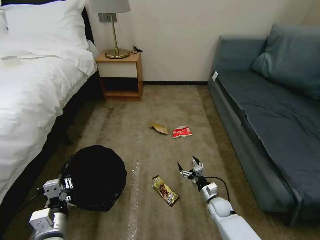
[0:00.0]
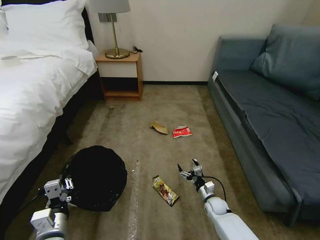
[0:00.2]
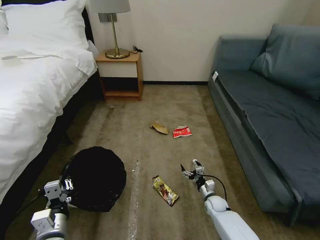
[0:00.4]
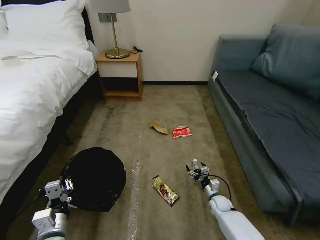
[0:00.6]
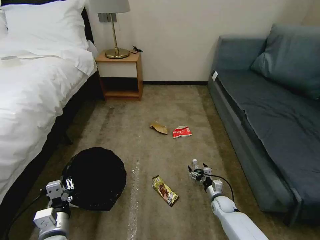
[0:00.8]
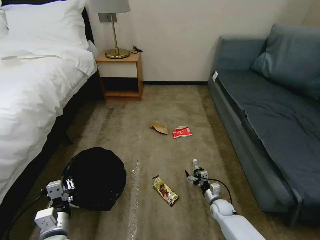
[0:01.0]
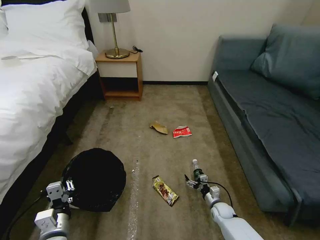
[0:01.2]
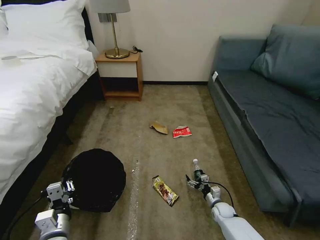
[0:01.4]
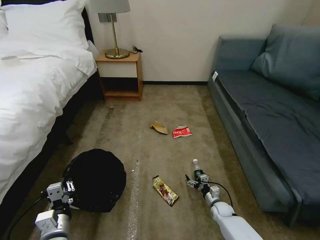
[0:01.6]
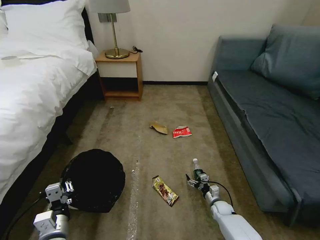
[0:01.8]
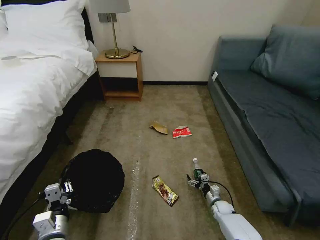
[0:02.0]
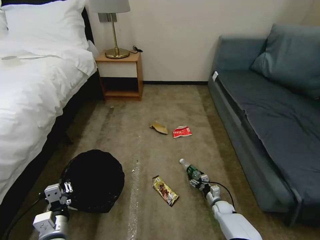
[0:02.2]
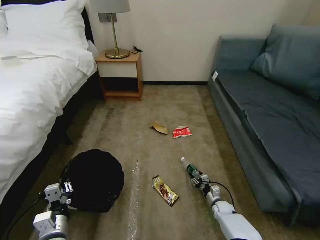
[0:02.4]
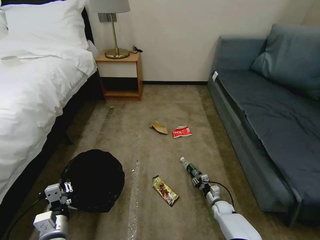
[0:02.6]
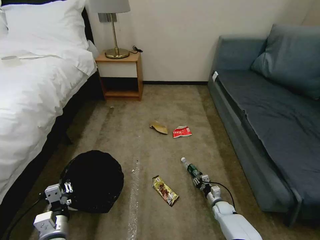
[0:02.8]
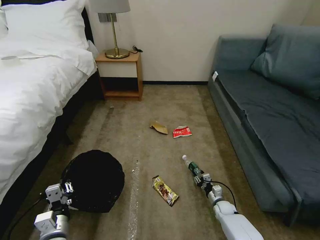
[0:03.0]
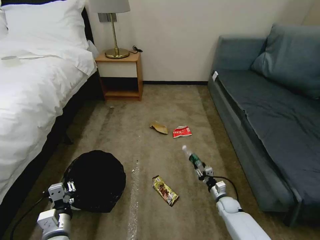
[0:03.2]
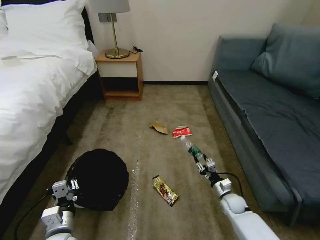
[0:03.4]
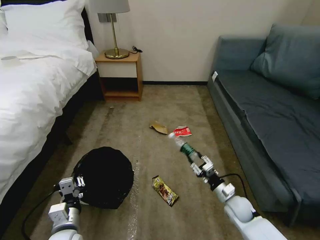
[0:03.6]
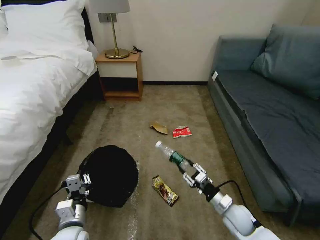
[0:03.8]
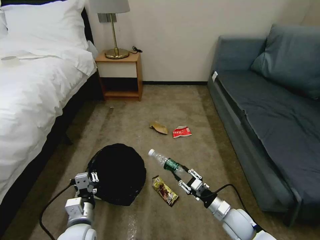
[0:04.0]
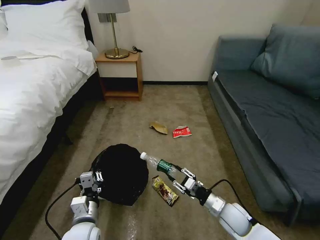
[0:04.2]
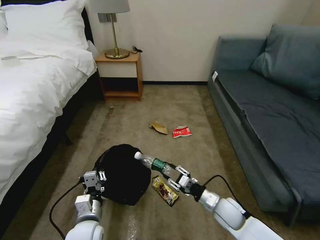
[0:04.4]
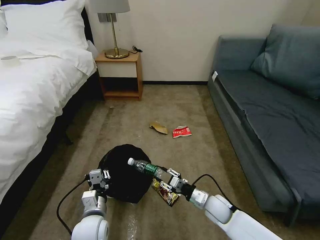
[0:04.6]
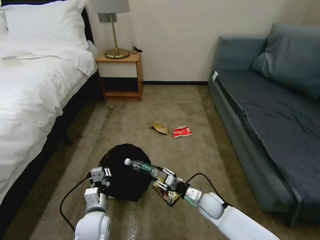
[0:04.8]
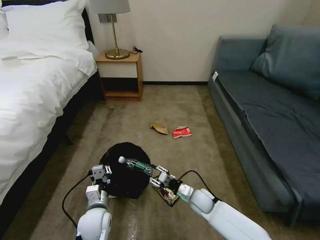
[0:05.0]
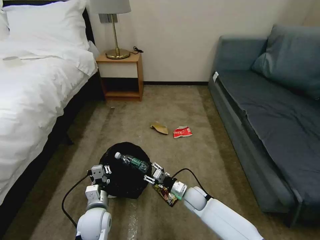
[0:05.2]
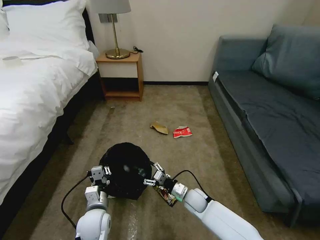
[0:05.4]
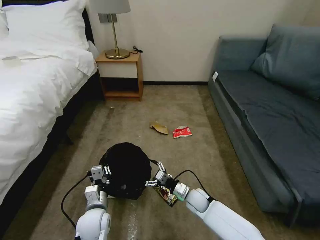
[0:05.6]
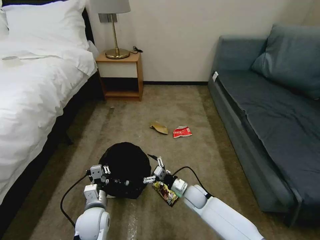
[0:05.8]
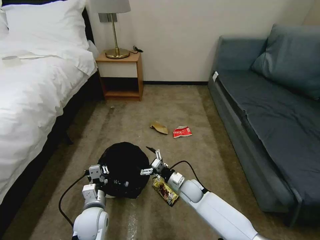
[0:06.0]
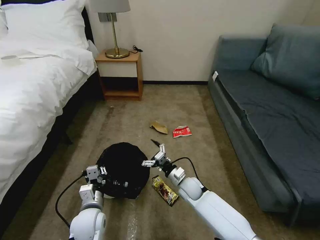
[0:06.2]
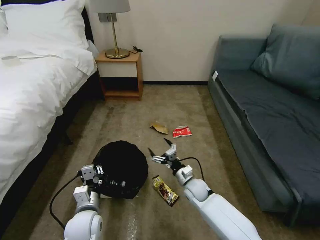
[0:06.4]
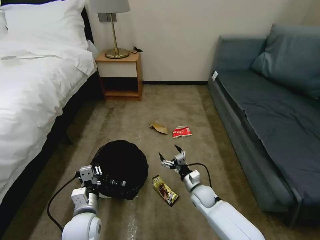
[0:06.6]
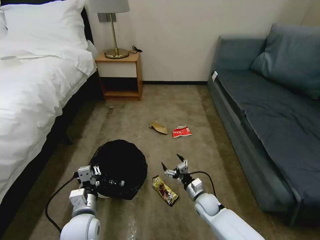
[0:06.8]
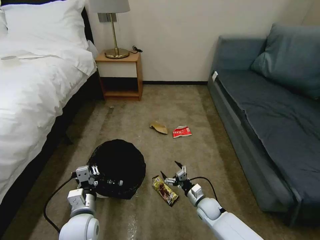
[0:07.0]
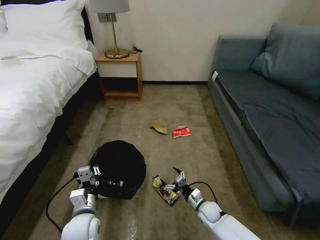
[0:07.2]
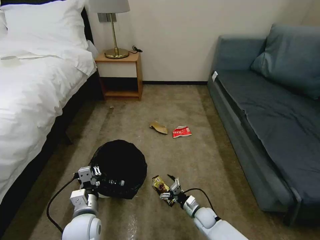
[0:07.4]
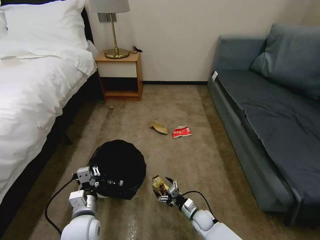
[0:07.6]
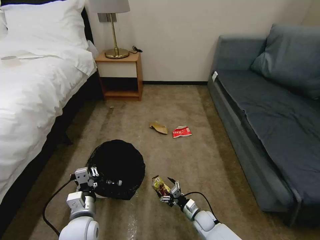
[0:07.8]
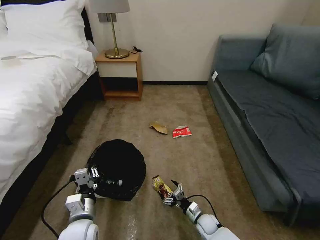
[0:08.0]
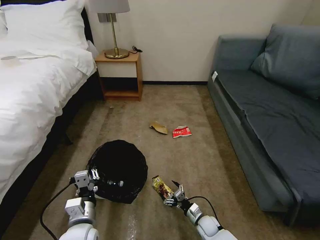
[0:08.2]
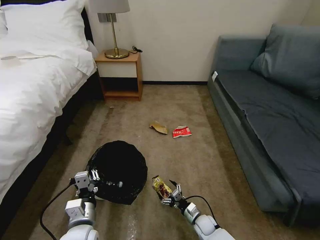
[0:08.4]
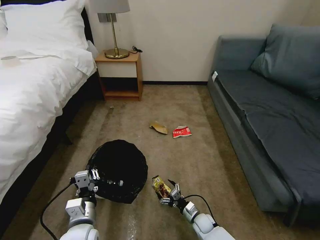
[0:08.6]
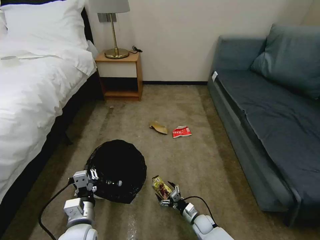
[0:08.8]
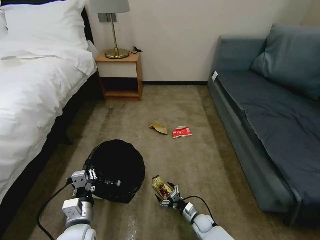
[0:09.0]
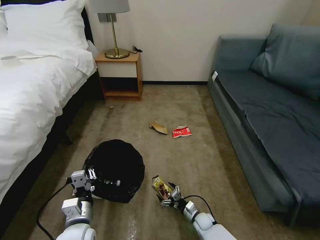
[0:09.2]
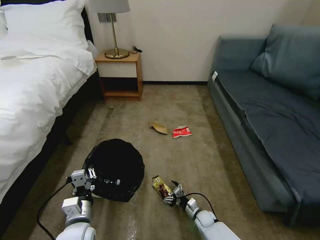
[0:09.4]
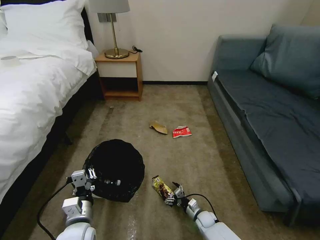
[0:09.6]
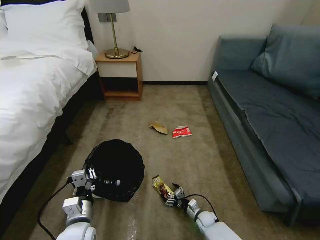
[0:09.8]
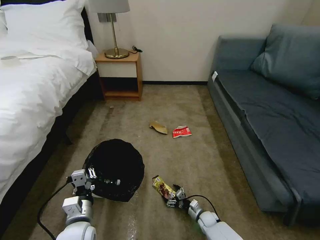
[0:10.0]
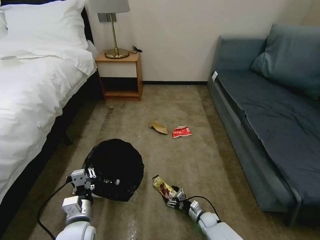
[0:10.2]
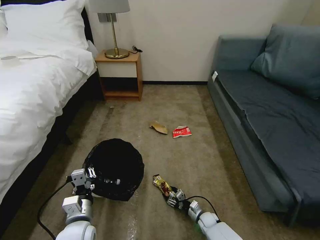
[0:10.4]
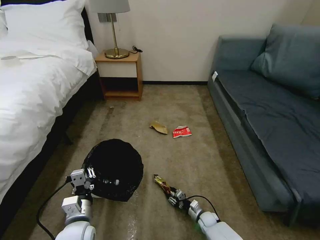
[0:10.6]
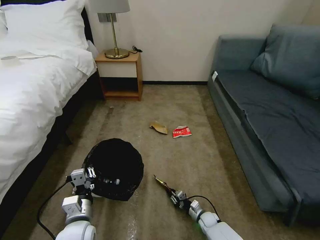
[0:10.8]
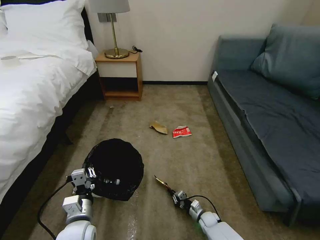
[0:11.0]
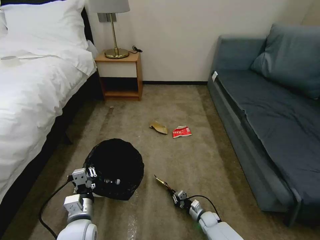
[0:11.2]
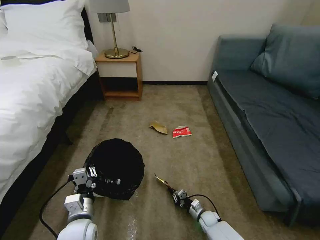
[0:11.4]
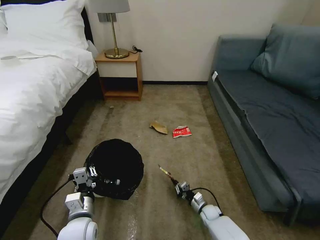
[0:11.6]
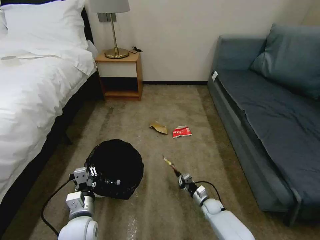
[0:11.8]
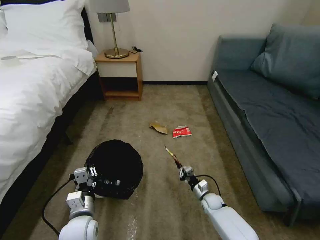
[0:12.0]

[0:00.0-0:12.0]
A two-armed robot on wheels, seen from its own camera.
Task of the whole recording: Pick up the trash bin, then pick up the garbage on the floor and place it into the trash bin.
0:00.0 to 0:01.6: The right gripper is displaced downward by roughly 5 cm.
0:01.6 to 0:03.0: The right gripper closes its fingers.
0:03.0 to 0:04.4: The right gripper heads upward, covering roughly 20 cm. The left gripper travels to the right by some 10 cm.
0:04.4 to 0:06.0: The right gripper heads to the left and forward, covering about 15 cm, and opens. Meanwhile the left gripper shifts by approximately 5 cm.
0:06.0 to 0:07.6: The right gripper shifts roughly 15 cm downward, backward and to the right.
0:07.6 to 0:09.0: The grippers stay close to where they were, moving slightly.
0:09.0 to 0:10.4: The right gripper closes.
0:10.4 to 0:12.0: The right gripper is displaced upward and forward by some 10 cm, and closes its fingers.

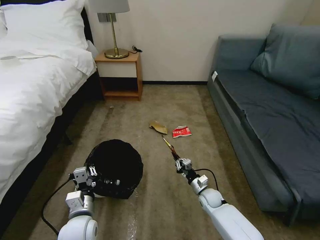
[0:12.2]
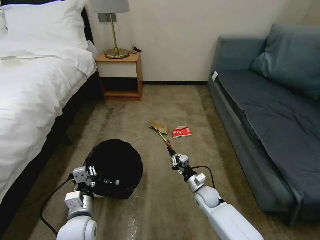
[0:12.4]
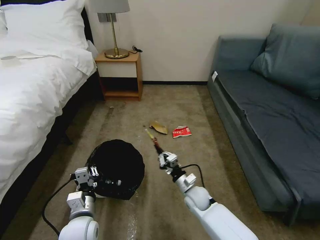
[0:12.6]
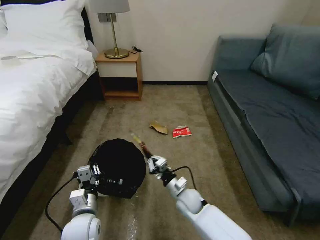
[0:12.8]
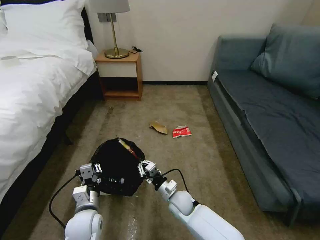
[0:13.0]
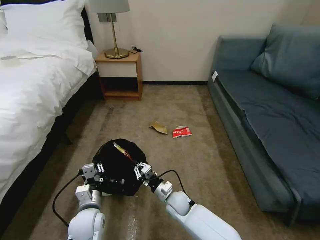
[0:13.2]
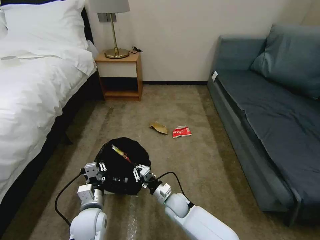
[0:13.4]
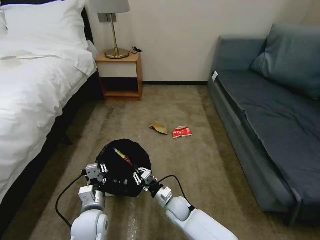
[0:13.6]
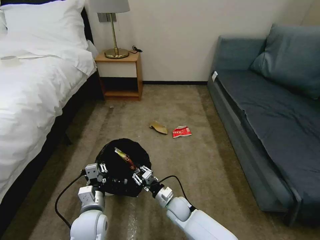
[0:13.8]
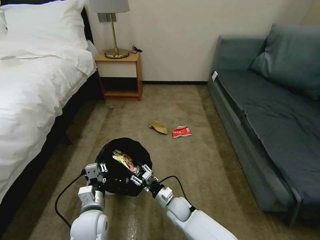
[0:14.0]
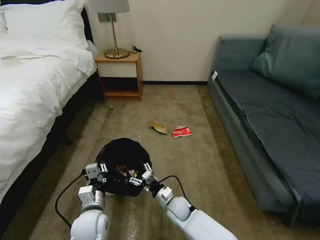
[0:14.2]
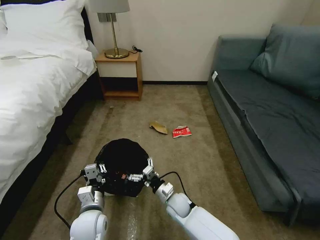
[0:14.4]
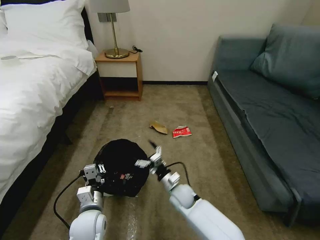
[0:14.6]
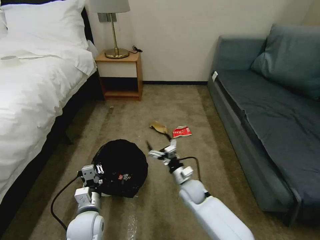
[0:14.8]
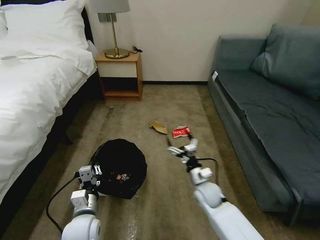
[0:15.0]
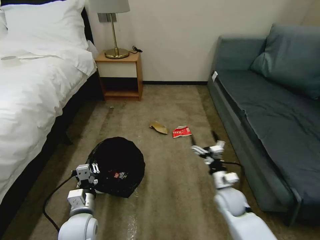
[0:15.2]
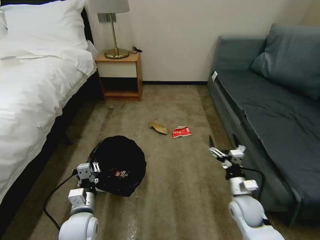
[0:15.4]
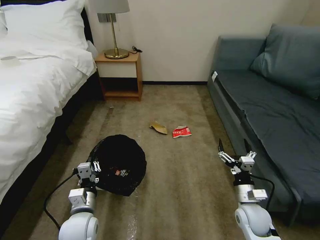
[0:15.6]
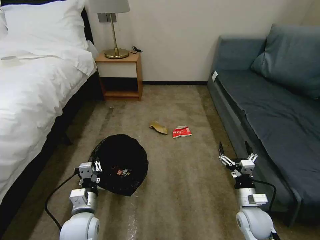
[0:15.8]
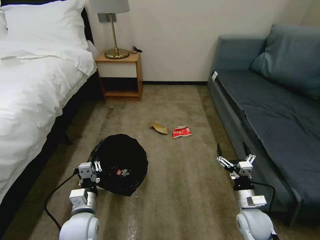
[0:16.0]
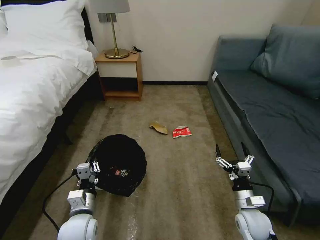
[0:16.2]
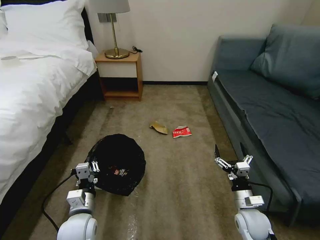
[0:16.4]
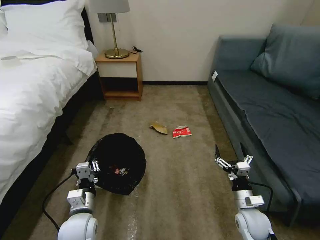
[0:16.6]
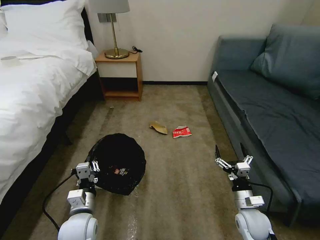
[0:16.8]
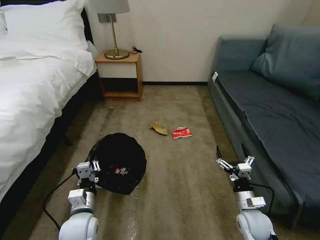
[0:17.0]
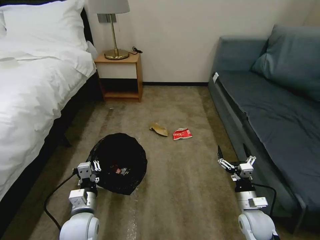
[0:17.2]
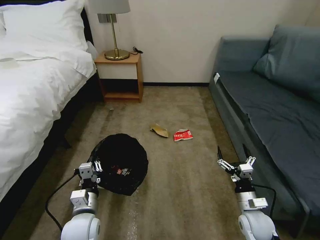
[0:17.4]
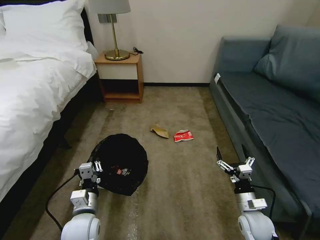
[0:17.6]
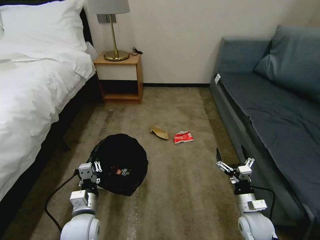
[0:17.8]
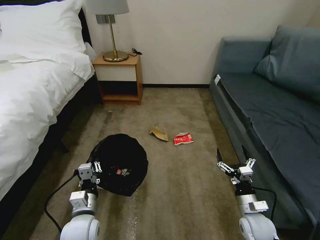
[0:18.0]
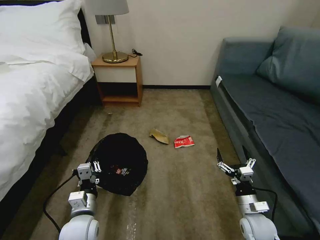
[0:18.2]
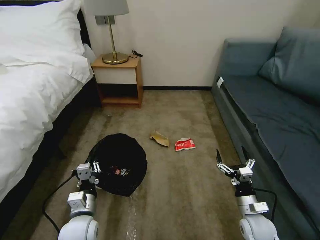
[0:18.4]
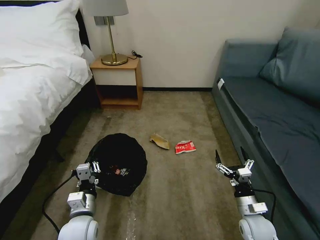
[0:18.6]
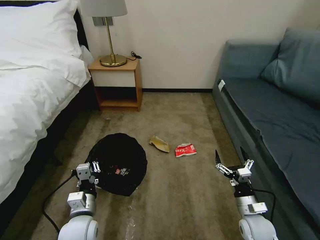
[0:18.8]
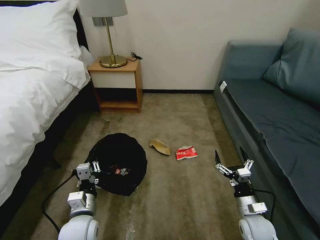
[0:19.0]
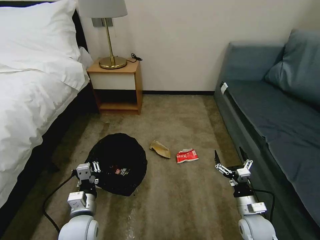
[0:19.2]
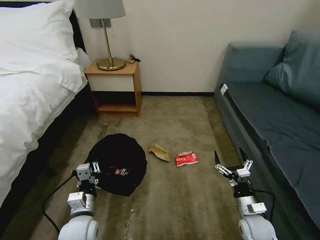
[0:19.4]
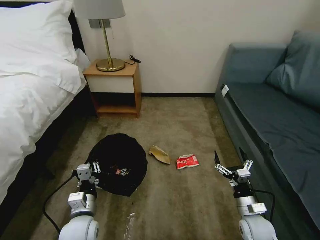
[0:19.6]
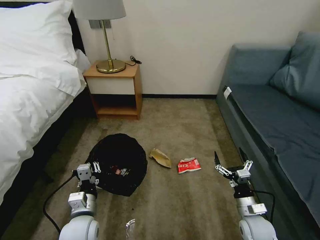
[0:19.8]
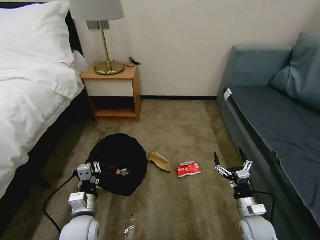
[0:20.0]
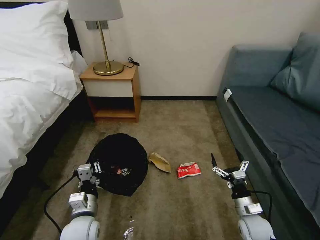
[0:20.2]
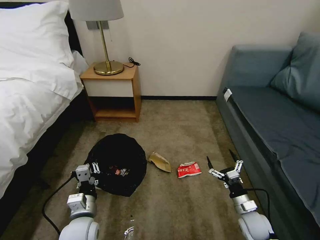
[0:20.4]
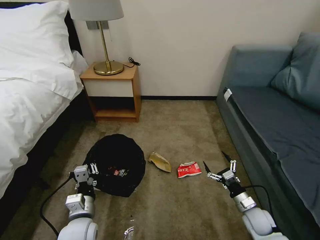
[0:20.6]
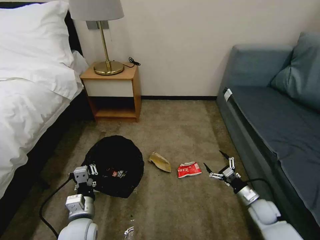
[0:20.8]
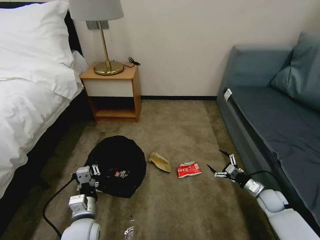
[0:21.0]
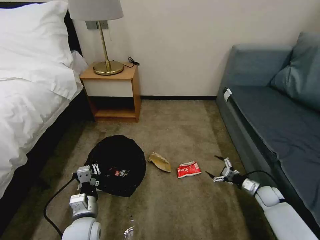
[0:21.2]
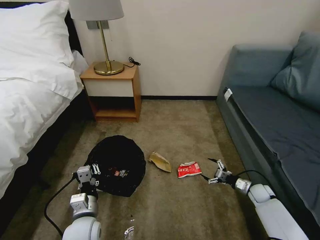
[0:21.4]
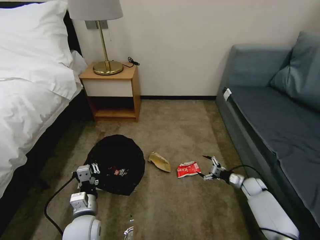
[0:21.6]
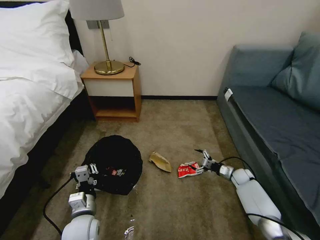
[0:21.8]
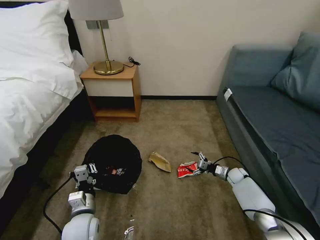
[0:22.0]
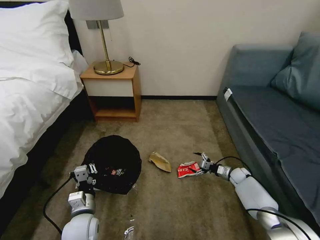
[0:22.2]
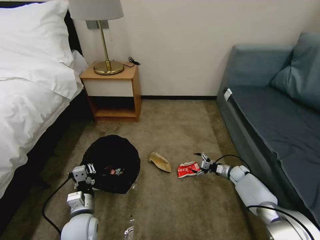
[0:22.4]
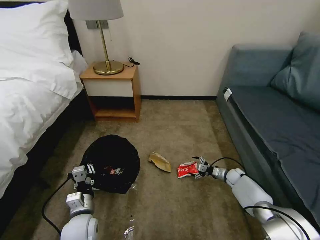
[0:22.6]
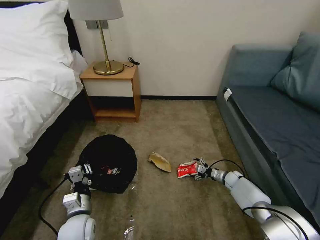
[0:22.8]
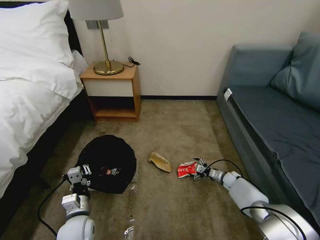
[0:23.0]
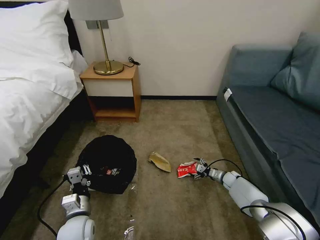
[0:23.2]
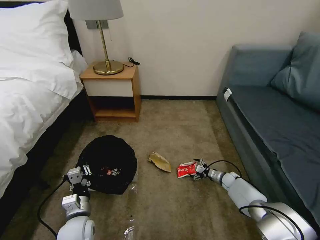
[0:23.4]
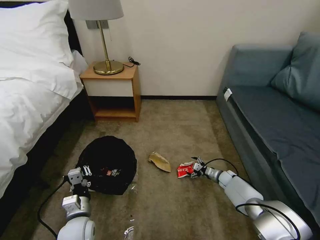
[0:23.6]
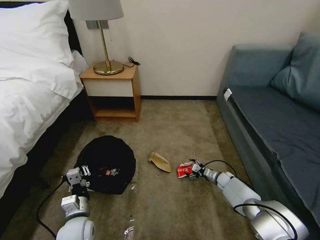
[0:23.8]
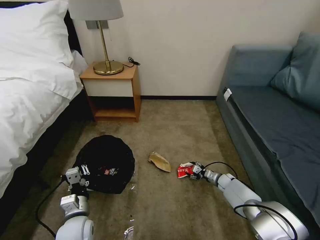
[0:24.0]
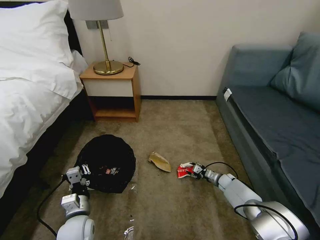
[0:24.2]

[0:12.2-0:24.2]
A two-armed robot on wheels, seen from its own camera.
Task of the whole recording: Pick up the trash bin, then pick up the garbage on the floor and place it into the trash bin.
0:12.2 to 0:13.8: The right gripper is displaced to the left by about 15 cm.
0:13.8 to 0:15.2: The right gripper is displaced to the right and upward by roughly 20 cm, and opens up.
0:15.2 to 0:16.6: The right gripper moves backward and to the right, roughly 10 cm.
0:16.6 to 0:18.2: There are only small adjustments of the grippers.
0:19.8 to 0:21.2: The right gripper shifts roughly 20 cm to the right, forward and downward.
0:21.2 to 0:22.6: The right gripper heads forward and to the left, covering about 15 cm.
0:22.6 to 0:24.2: The right gripper shifts by approximately 5 cm, and closes its fingers.
